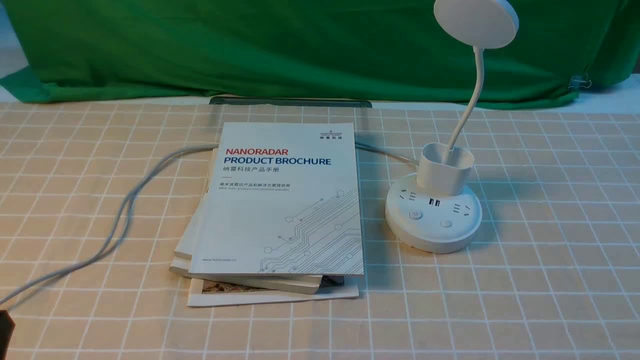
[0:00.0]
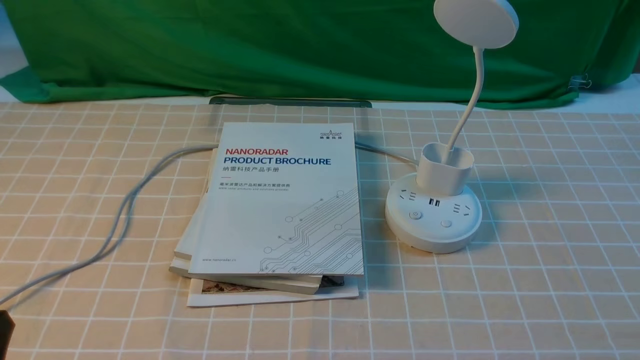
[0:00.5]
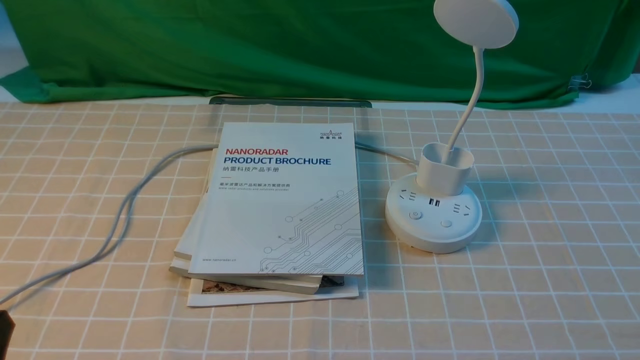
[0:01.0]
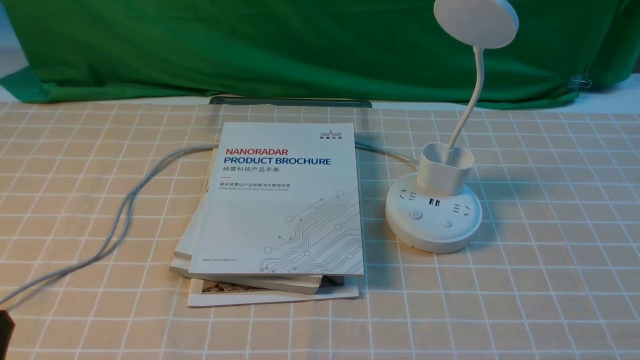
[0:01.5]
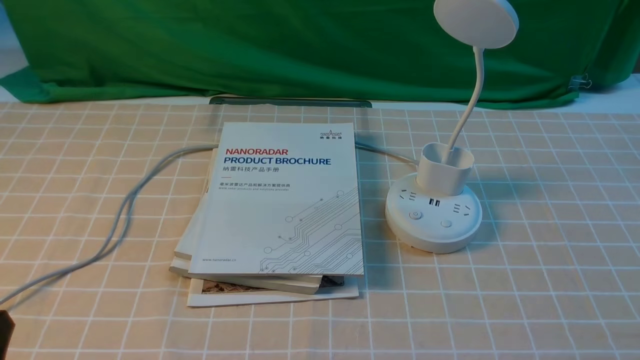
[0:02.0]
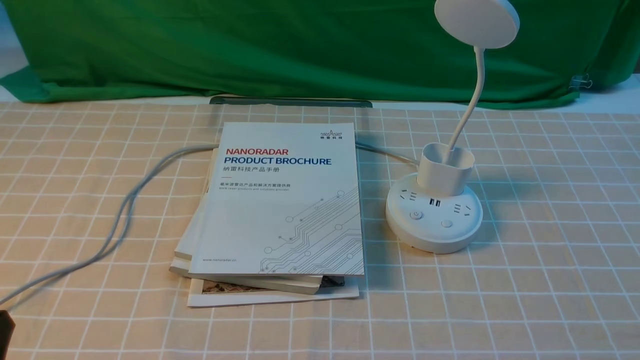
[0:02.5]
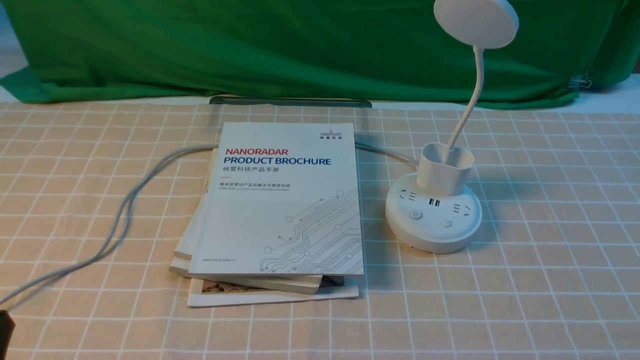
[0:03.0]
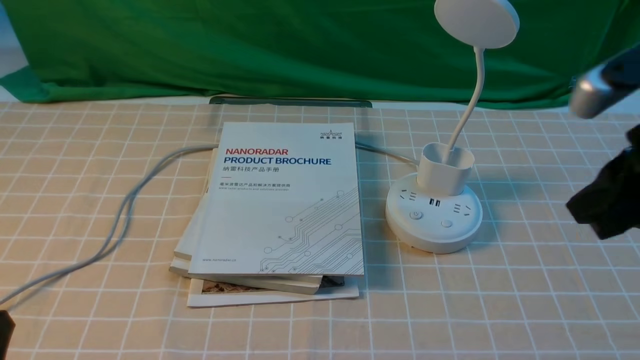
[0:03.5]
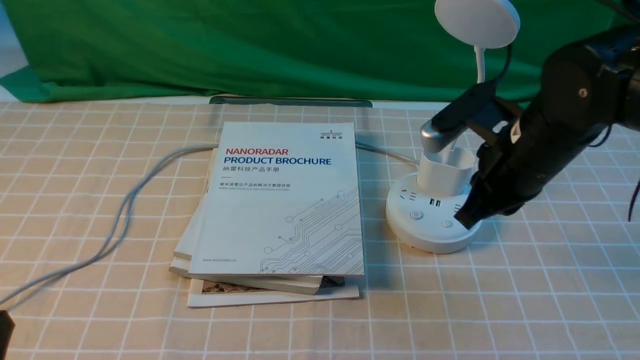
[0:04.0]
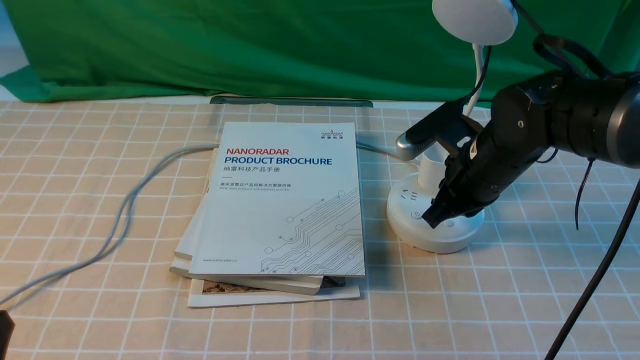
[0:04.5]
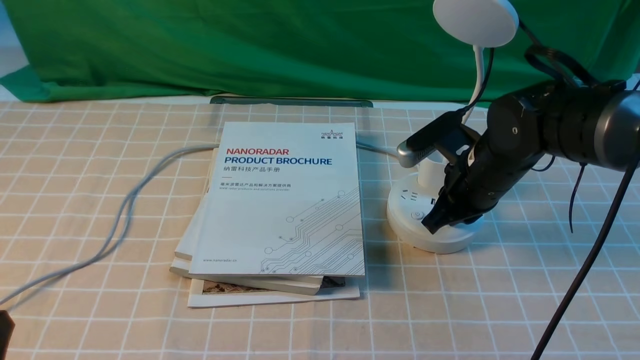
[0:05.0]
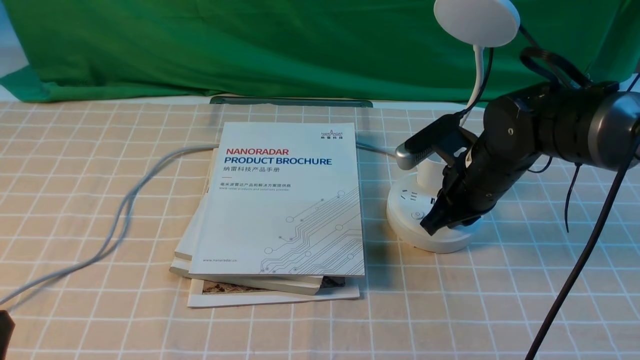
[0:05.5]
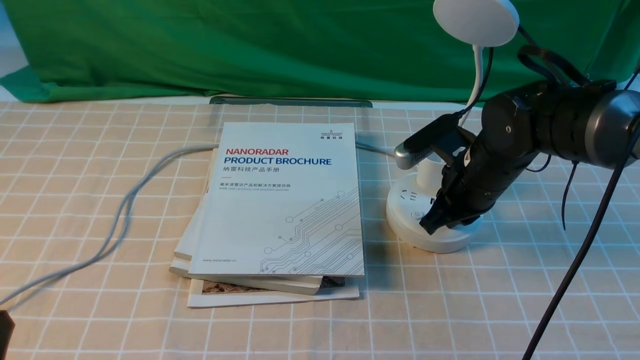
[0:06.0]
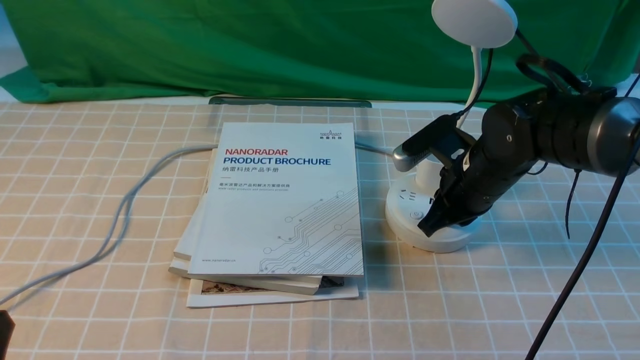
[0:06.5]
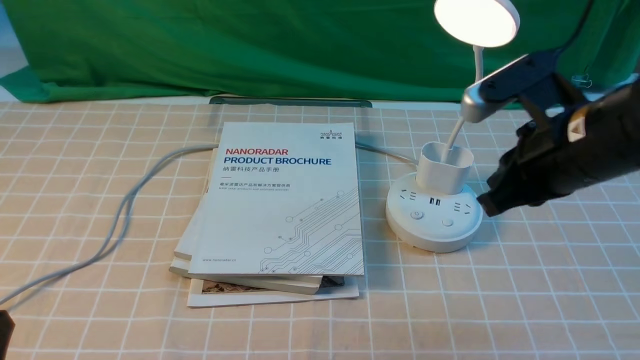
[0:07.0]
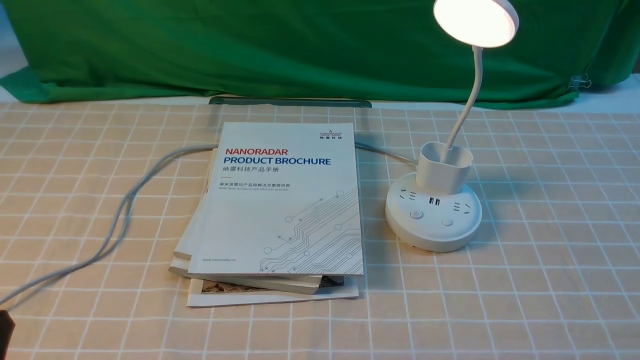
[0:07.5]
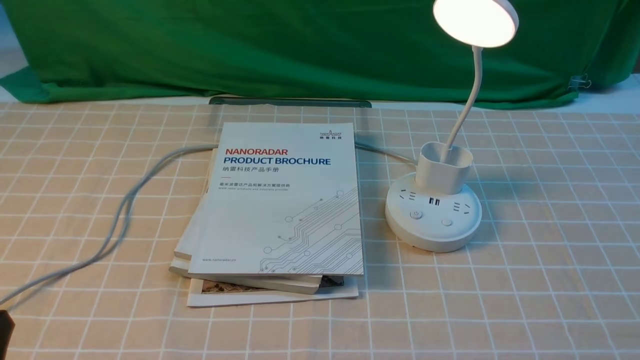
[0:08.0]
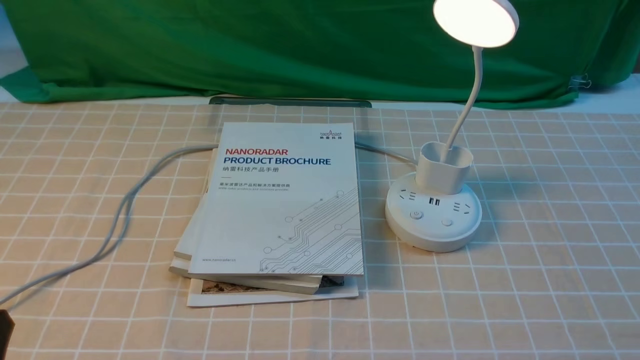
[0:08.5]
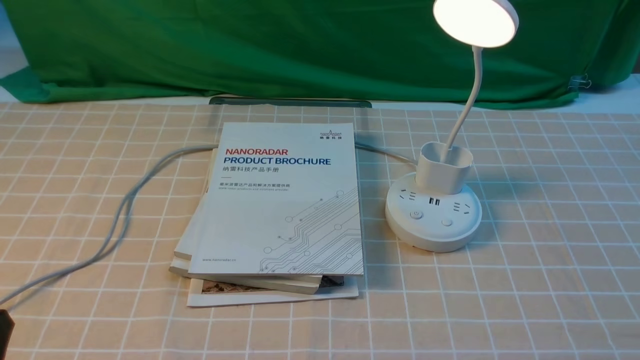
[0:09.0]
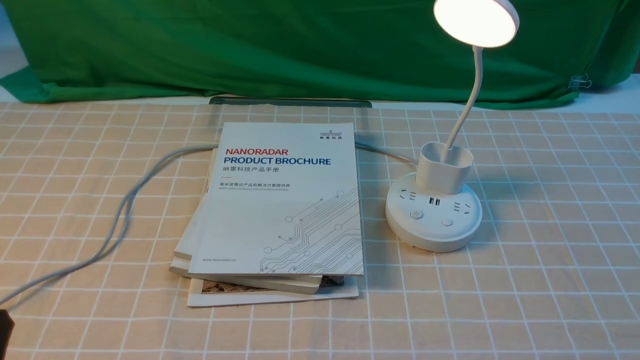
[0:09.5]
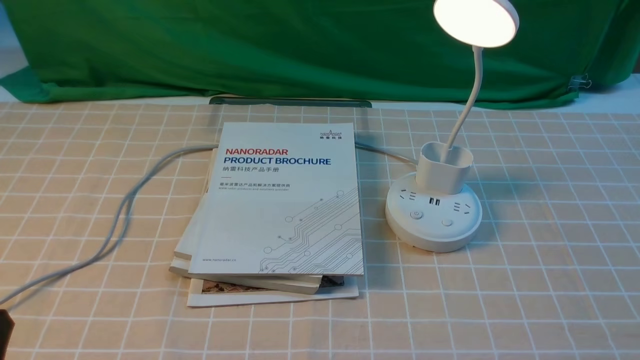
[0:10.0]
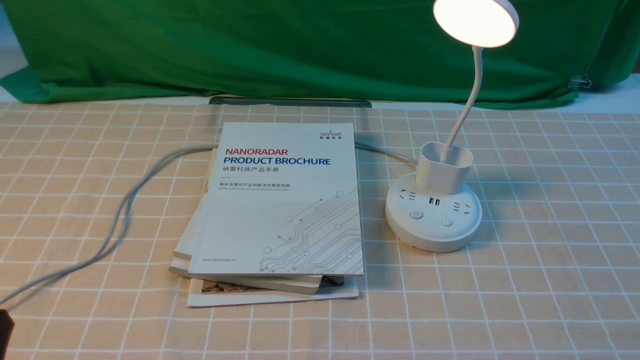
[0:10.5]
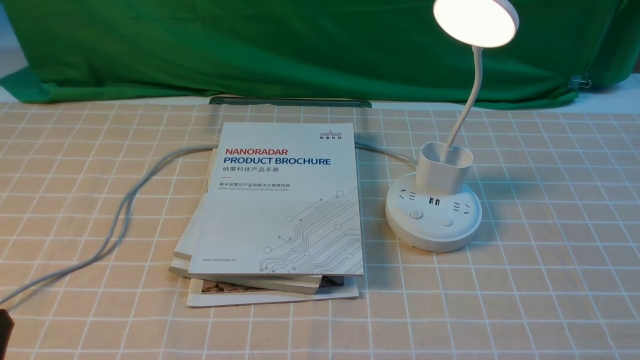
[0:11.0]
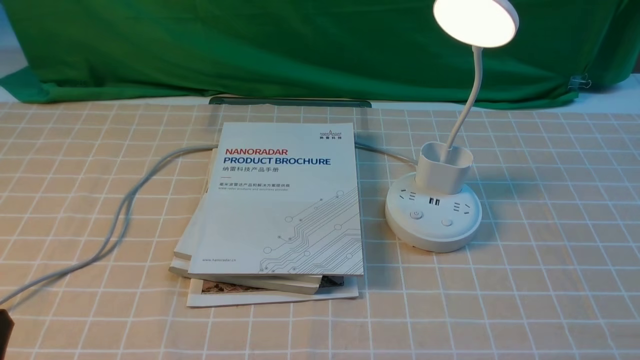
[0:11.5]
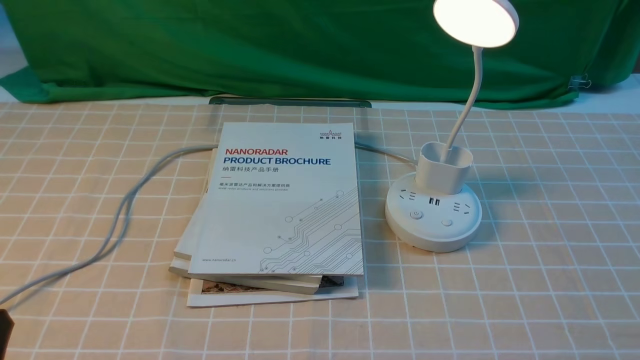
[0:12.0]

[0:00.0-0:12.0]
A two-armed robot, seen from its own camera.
Step, 0:00.0 to 0:07.0: use the right arm to press the button switch on the lamp holder.
0:02.0 to 0:04.0: The right gripper is displaced forward and to the left by some 30 cm, and closes.
0:04.0 to 0:06.0: The right gripper moves downward, approximately 10 cm.
0:06.0 to 0:08.0: The right gripper goes some 35 cm backward, to the right and upward.
0:10.0 to 0:12.0: Neither gripper changes place.
